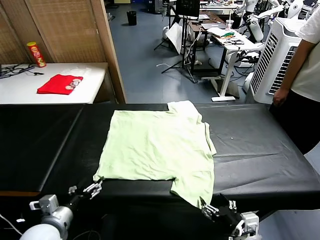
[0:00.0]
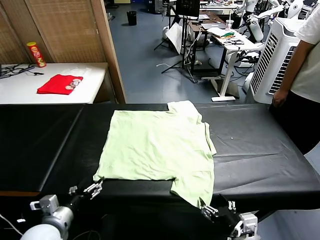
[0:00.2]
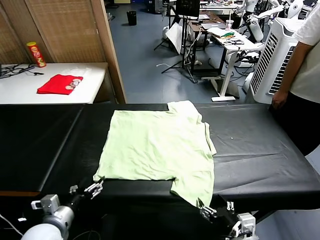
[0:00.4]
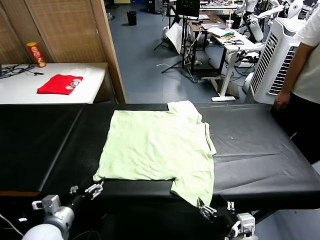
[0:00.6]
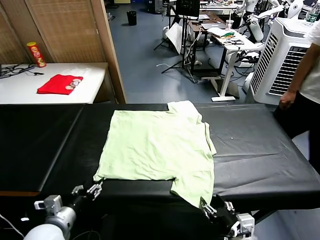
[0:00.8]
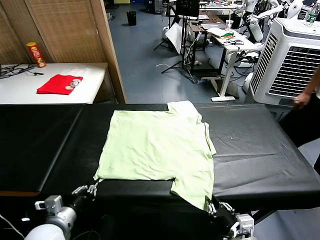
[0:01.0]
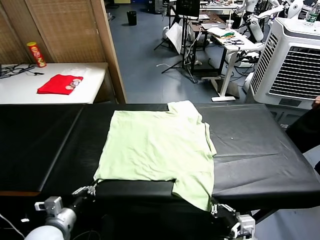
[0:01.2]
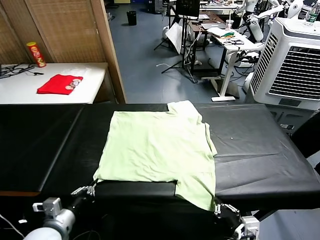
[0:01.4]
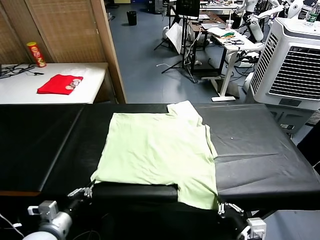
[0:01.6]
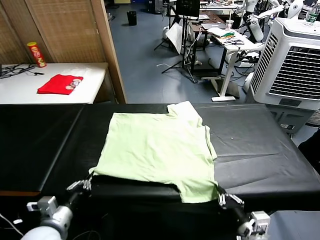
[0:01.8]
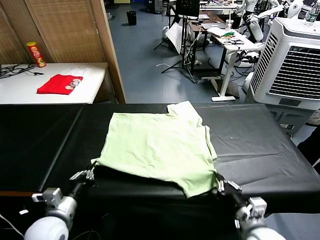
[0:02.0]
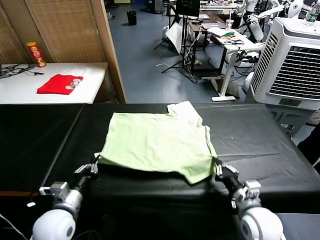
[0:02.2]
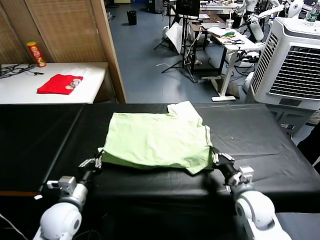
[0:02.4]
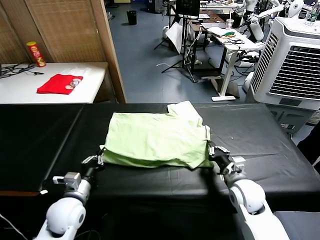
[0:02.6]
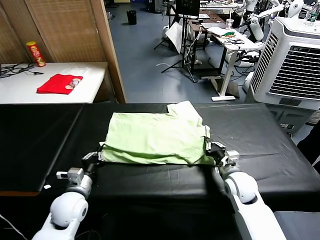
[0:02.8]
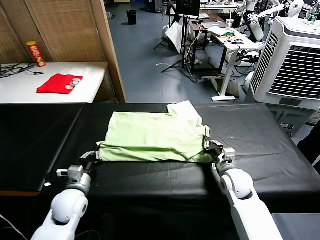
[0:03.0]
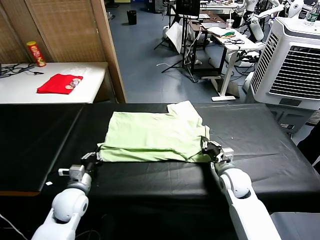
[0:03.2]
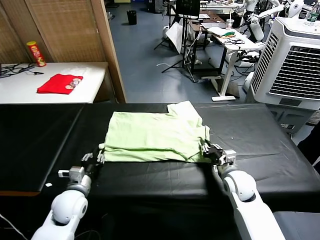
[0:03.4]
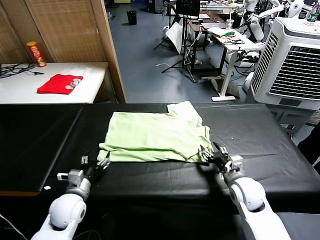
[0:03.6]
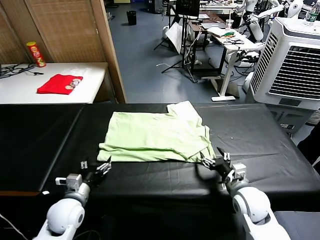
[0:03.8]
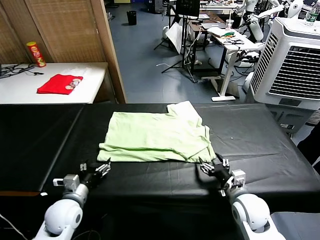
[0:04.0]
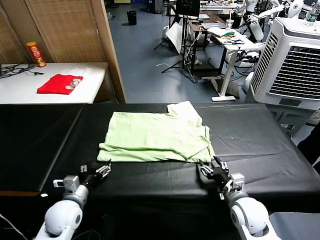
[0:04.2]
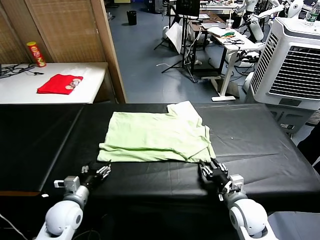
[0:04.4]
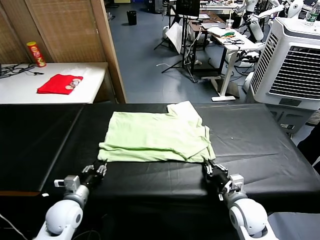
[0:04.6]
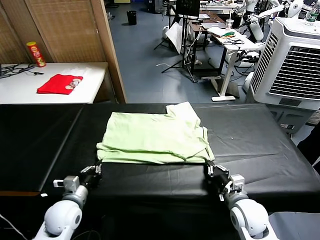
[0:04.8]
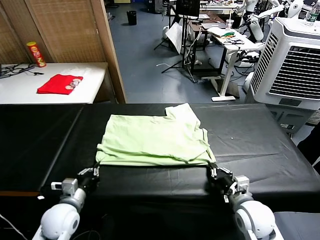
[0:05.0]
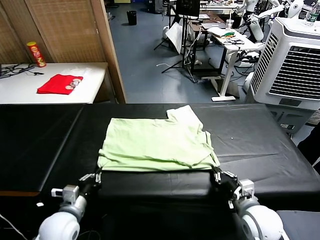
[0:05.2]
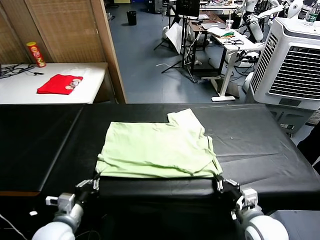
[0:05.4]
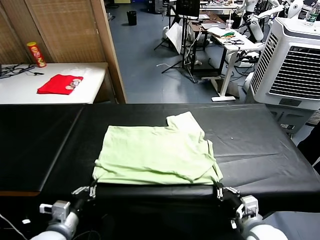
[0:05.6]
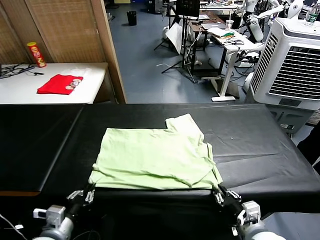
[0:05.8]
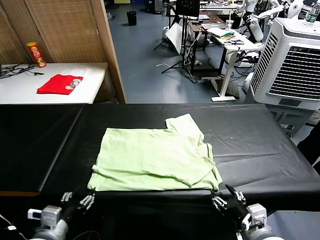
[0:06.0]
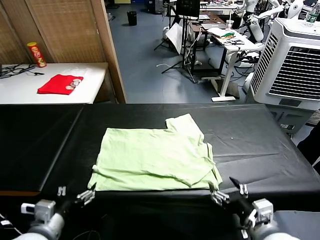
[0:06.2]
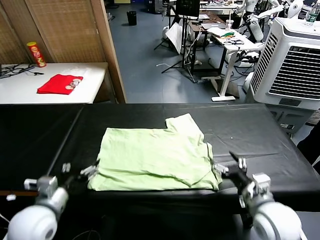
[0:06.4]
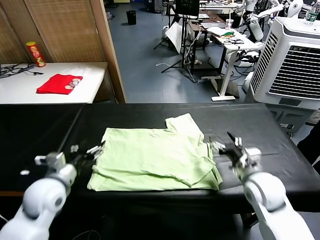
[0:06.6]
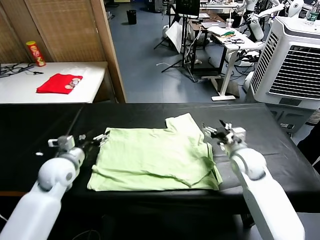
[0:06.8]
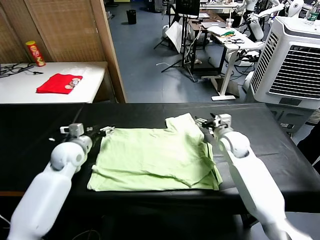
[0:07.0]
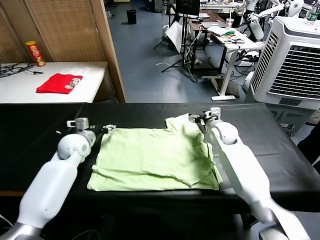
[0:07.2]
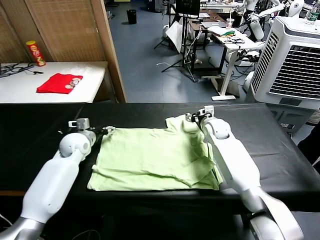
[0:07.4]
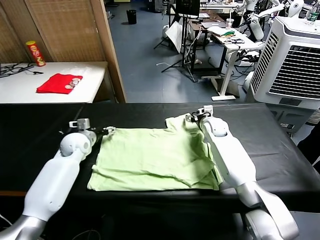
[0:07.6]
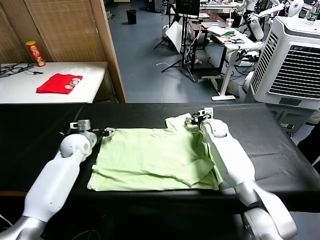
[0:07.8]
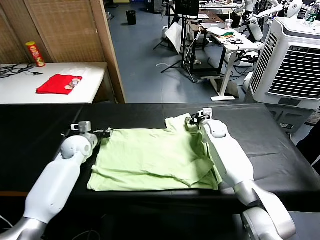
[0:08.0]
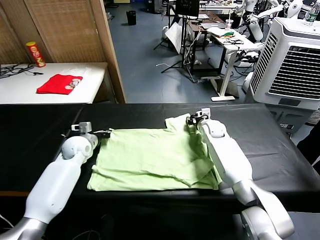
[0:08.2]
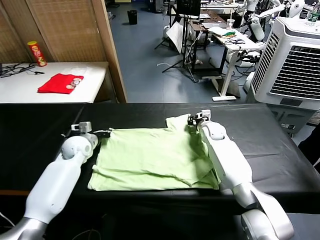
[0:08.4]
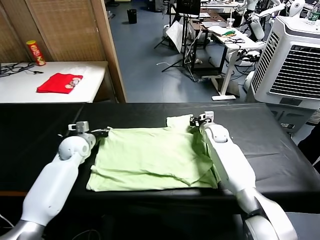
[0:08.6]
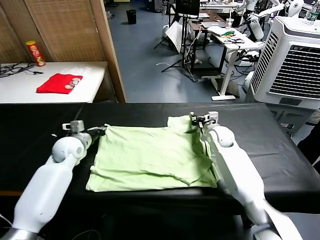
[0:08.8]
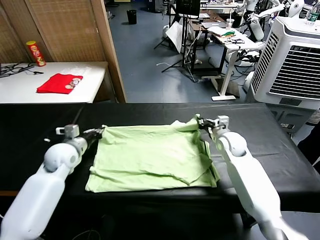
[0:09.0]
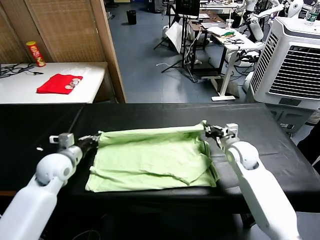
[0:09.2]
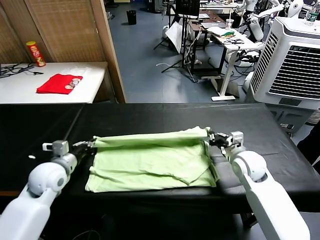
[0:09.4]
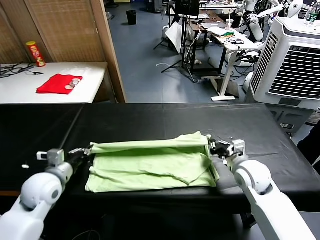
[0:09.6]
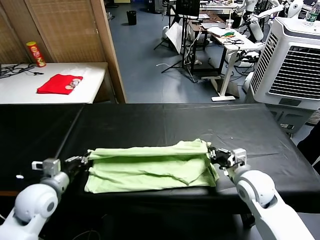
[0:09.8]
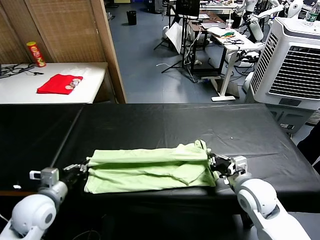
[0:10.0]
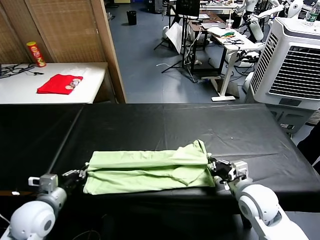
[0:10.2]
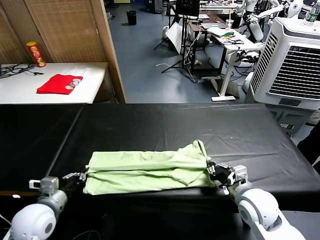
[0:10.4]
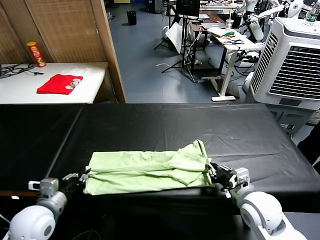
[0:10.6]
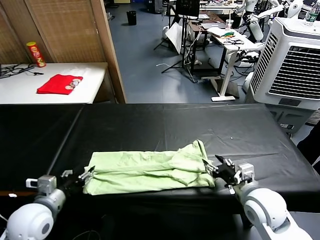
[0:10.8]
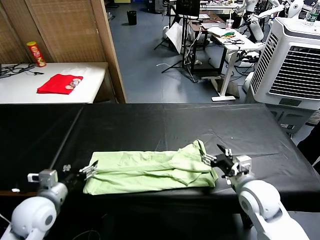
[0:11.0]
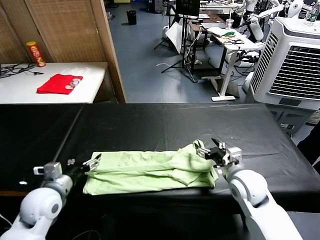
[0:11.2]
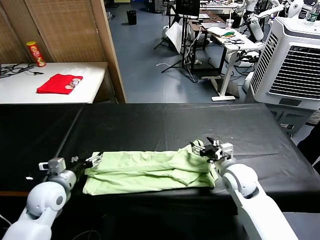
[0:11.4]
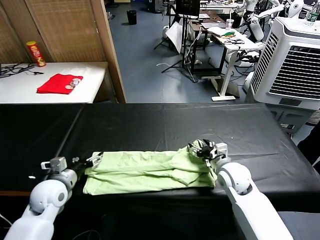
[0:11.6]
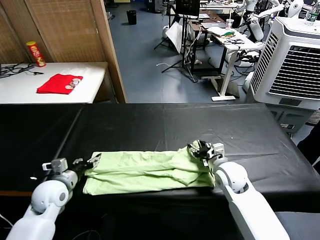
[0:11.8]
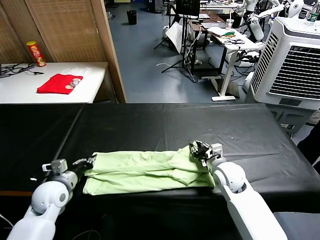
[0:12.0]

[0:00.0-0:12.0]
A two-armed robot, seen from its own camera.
Task of the whole recording: fold and organize the clothes.
Step, 0:00.0 to 0:01.2: use both grippers simultaneously to clamp the lower edge of the clothing fabric.
Step, 0:01.4 to 0:03.4: use both grippers to drag the lower edge of the fabric forward and fold it over the upper edge.
Step, 0:03.6 to 0:06.0: Drag the clothes downward with both gripper.
Step, 0:06.2 to 0:08.2: use both grippers simultaneously to clamp the upper edge of the clothing fabric.
Step, 0:08.6 to 0:10.8: use both grippers to drag the upper edge of the fabric backward and fold it over the lower edge.
0:01.6 to 0:03.0: The right gripper is displaced forward by approximately 25 cm, while the left gripper heads forward, covering roughly 15 cm.
0:03.0 to 0:04.4: The right gripper goes some 10 cm backward, and opens, then closes again, while the left gripper opens its fingers.
0:04.4 to 0:06.0: Both grippers move backward and upward, approximately 15 cm. The left gripper closes, then reopens. The right gripper opens its fingers.
0:06.0 to 0:07.6: The grippers both shift forward by approximately 40 cm.
0:07.6 to 0:09.0: The right gripper goes about 10 cm backward, and closes its fingers. Meanwhile the left gripper is displaced backward by about 10 cm, and closes up.
0:09.0 to 0:10.4: Both grippers travel together backward, some 20 cm.
0:10.4 to 0:12.0: The grippers both shift forward by about 10 cm. The right gripper opens and closes again, while the left gripper opens, then closes once more.

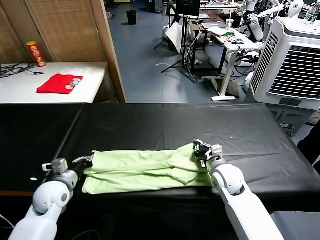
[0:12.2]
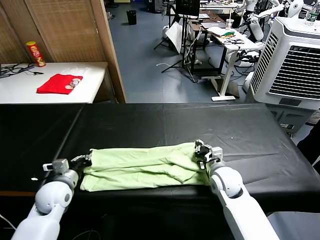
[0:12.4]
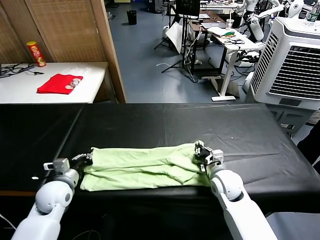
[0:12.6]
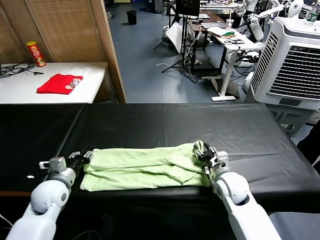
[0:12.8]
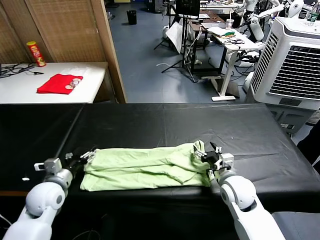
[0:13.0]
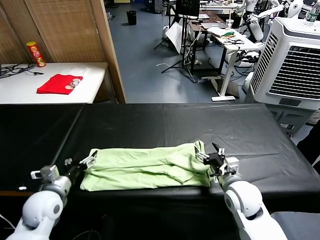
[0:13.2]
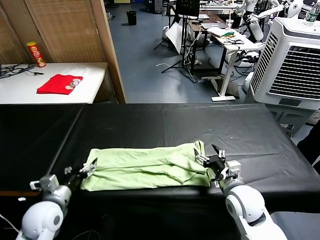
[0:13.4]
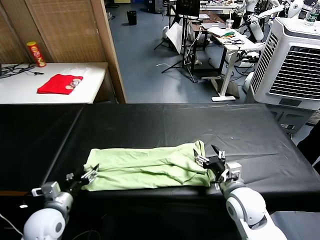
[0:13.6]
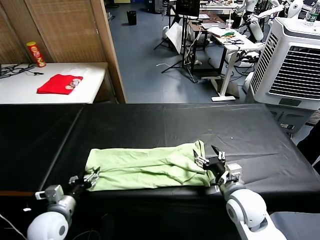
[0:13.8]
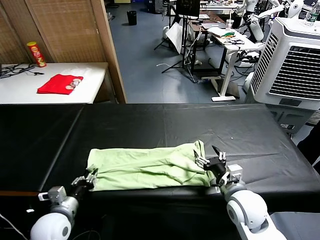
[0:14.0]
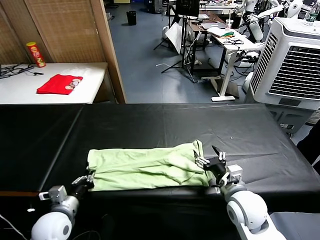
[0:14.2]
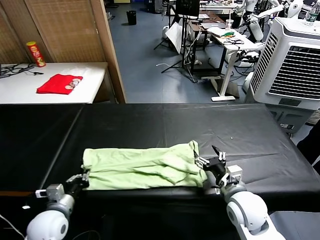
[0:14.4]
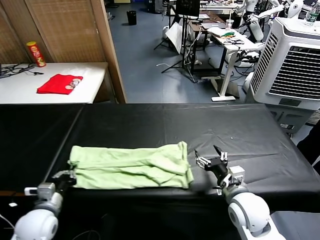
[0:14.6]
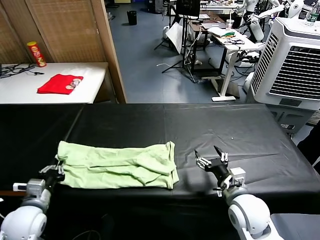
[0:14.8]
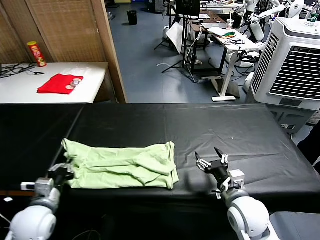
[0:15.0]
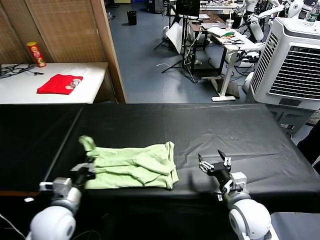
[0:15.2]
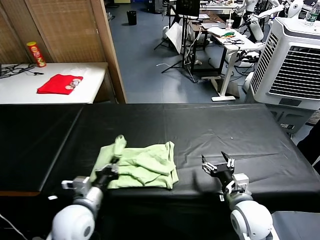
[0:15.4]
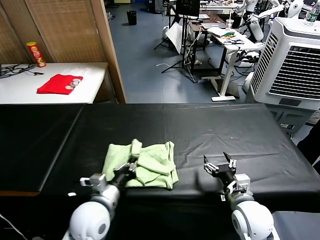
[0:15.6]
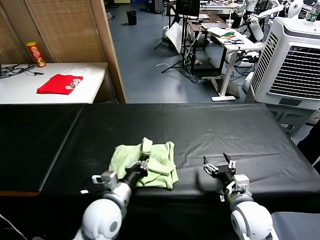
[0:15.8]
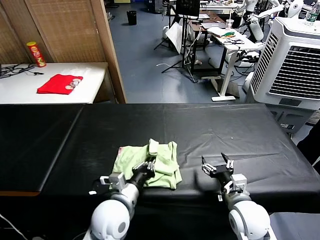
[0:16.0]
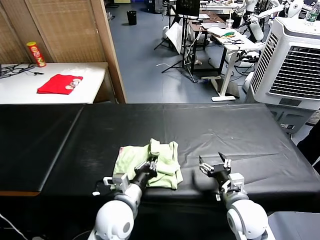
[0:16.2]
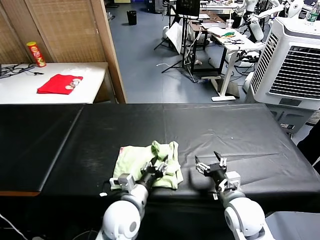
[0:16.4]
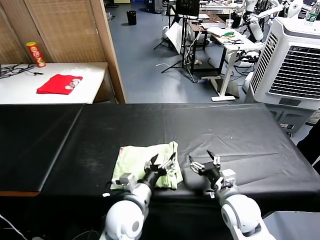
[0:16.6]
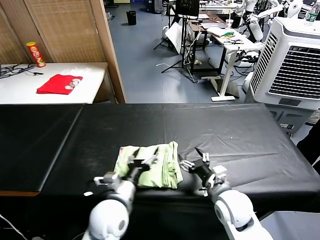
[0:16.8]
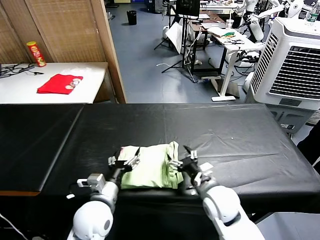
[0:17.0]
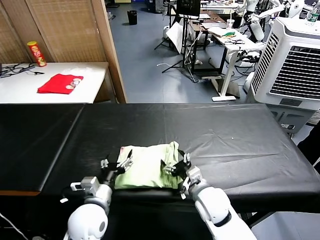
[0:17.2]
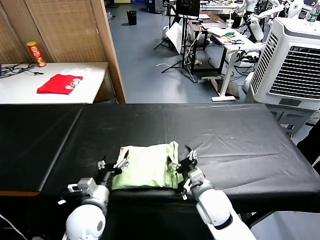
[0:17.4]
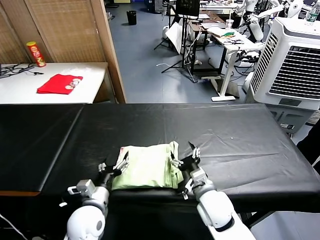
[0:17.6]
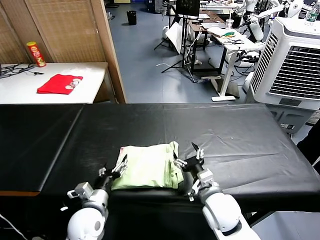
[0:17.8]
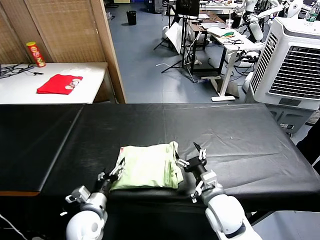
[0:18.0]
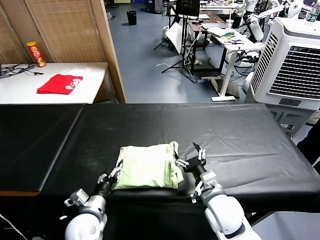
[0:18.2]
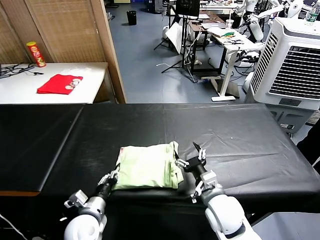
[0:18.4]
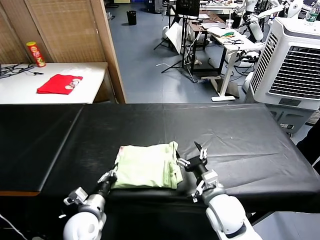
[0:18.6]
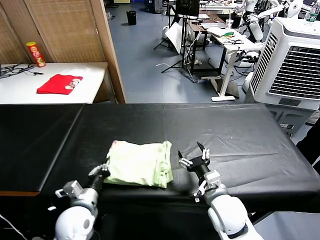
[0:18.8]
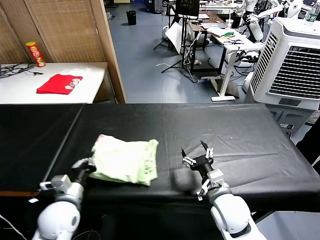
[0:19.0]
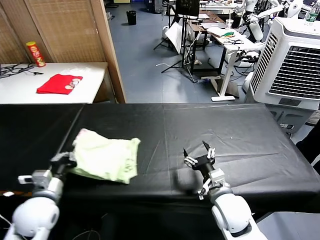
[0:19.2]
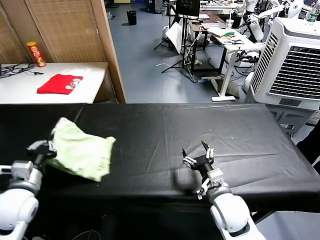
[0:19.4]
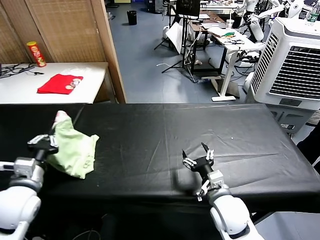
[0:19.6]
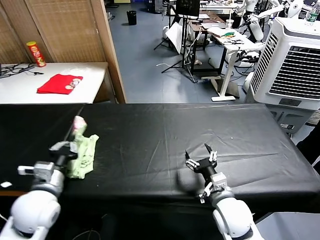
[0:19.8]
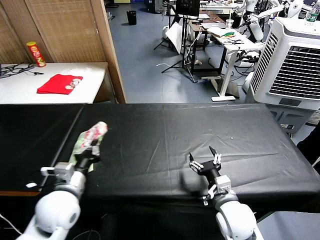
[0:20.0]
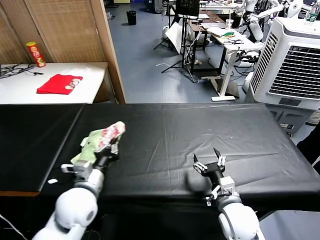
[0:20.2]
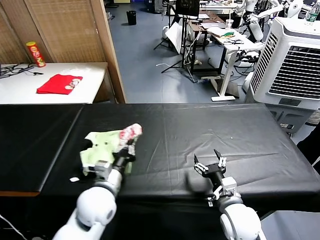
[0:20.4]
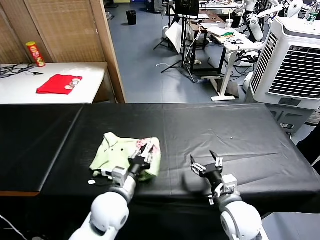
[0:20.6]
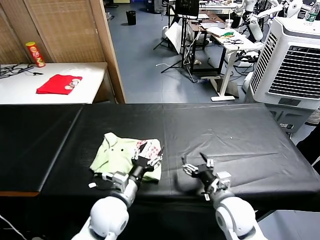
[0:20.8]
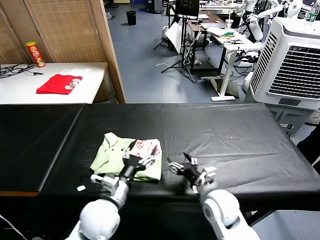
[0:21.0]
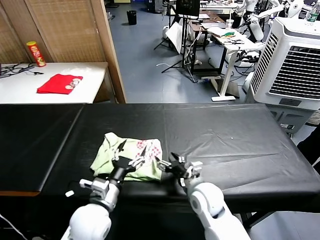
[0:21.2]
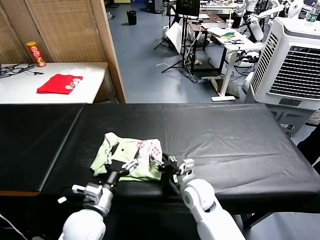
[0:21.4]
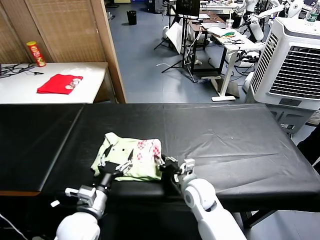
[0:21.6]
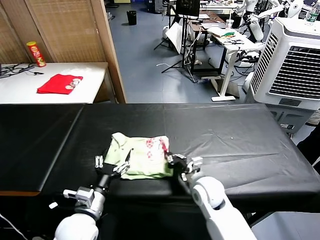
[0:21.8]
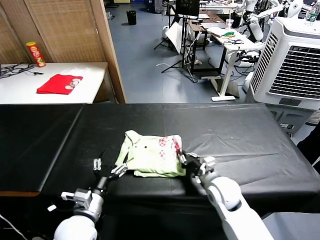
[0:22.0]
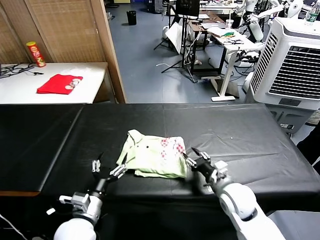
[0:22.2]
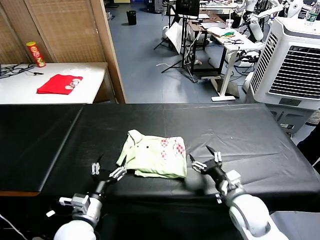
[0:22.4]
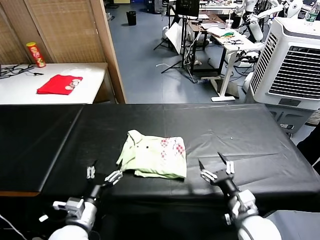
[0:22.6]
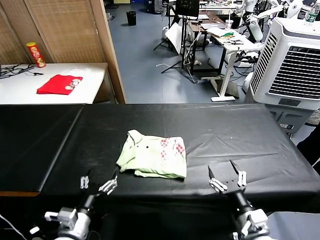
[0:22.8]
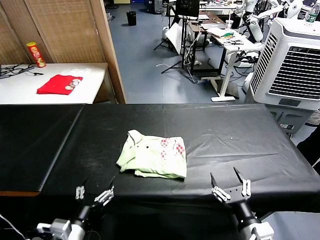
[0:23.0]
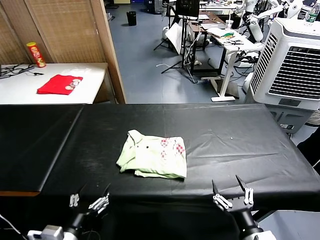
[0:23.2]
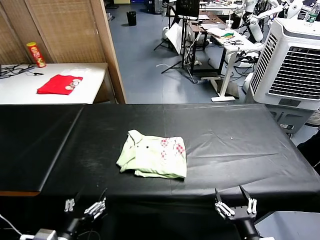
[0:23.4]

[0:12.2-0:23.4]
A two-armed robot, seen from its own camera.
Task of the whole recording: fold and organize the clothes.
Step, 0:12.2 to 0:14.0: use the left gripper to clamp the left edge of the fabric.
Step, 0:14.2 to 0:16.6: use the left gripper to drag the left edge of the fabric to the left and folds it over the right edge.
Step, 0:16.8 to 0:20.6: Flip the folded clothes over with left gripper.
Step, 0:20.8 to 0:22.2: Drag the clothes to the center of the table.
0:12.2 to 0:13.8: Both grippers move backward, roughly 10 cm. The left gripper opens; the right gripper opens up.
0:13.8 to 0:15.4: The left gripper moves to the right and upward, roughly 10 cm, and closes up.
0:15.4 to 0:17.0: The left gripper travels to the right by roughly 5 cm, and opens up, while the right gripper travels to the left by some 5 cm.
0:17.0 to 0:18.6: The left gripper moves downward and to the left, roughly 10 cm, and closes.
0:18.6 to 0:20.2: The left gripper is displaced upward by about 10 cm.
0:20.2 to 0:21.8: The right gripper heads forward and to the left, covering about 10 cm, and closes its fingers. The left gripper reaches some 10 cm to the right, then returns, and opens.
0:21.8 to 0:23.4: The right gripper heads backward and to the right, covering about 25 cm, and opens up; the left gripper is displaced backward by some 10 cm.
